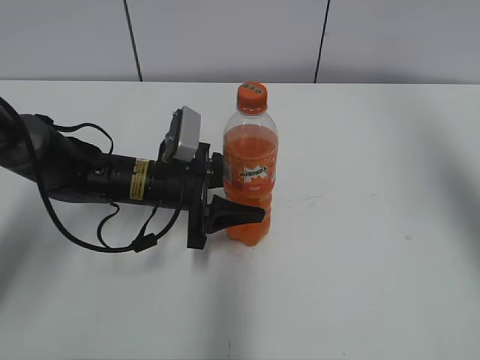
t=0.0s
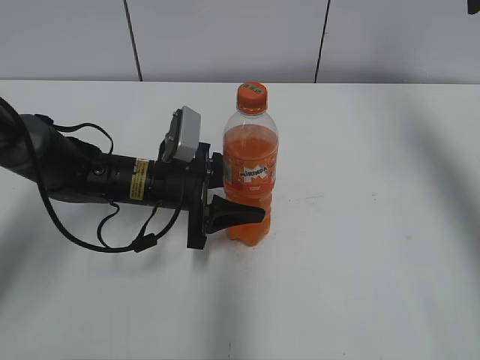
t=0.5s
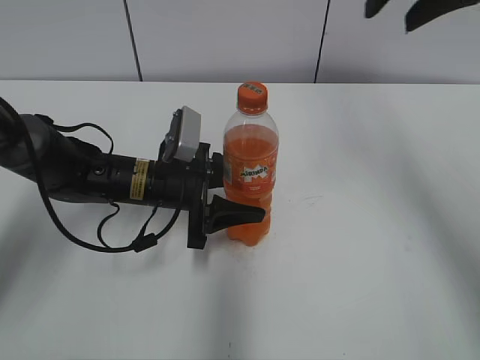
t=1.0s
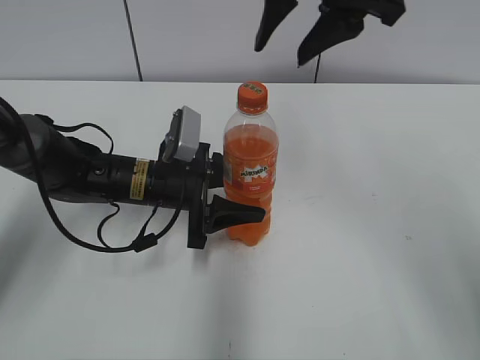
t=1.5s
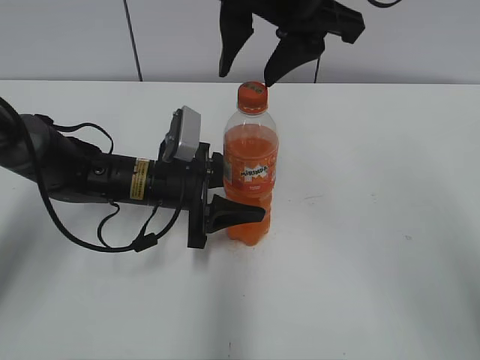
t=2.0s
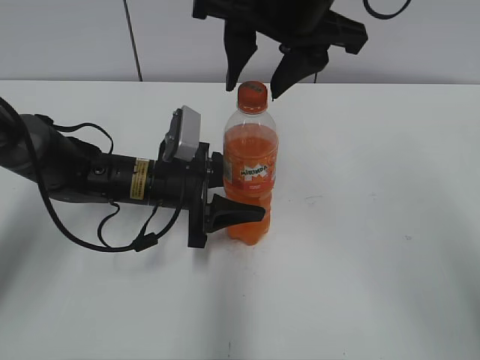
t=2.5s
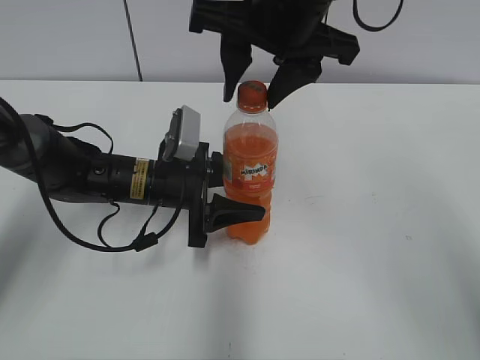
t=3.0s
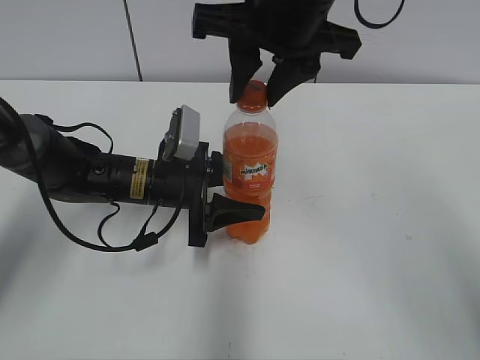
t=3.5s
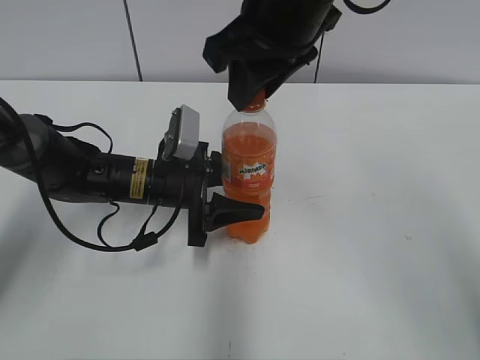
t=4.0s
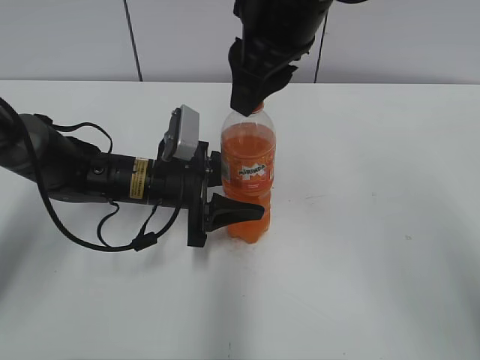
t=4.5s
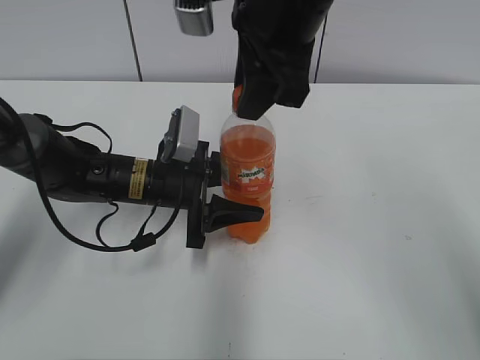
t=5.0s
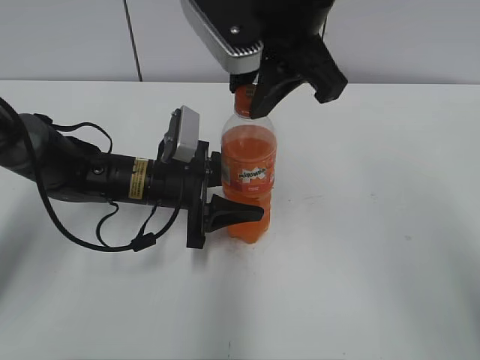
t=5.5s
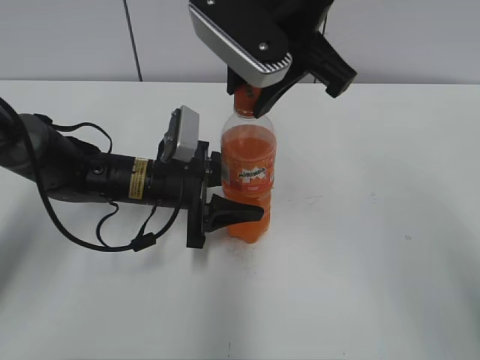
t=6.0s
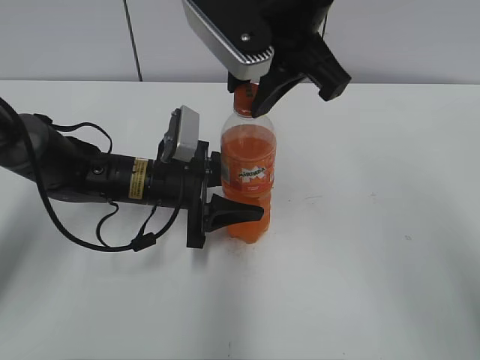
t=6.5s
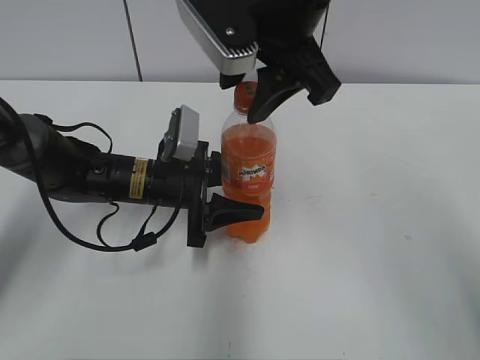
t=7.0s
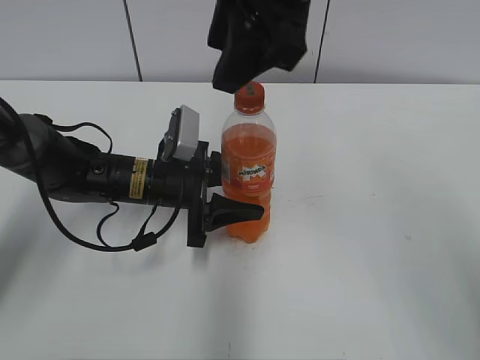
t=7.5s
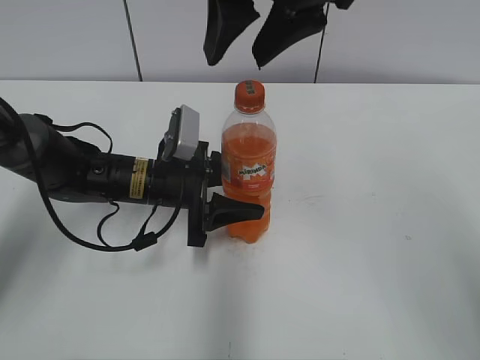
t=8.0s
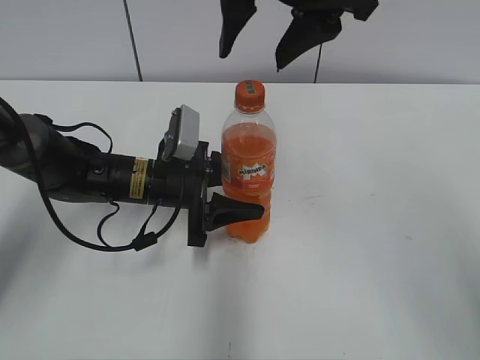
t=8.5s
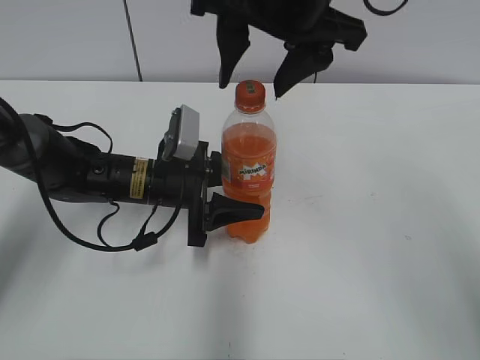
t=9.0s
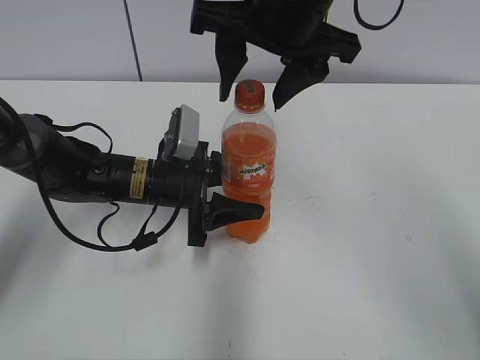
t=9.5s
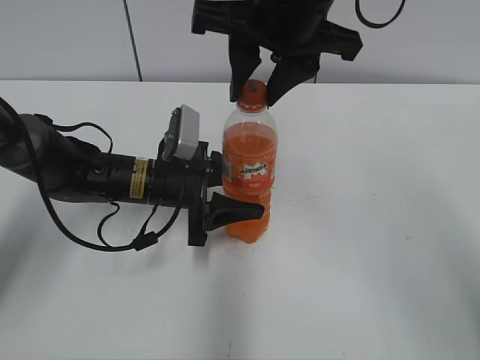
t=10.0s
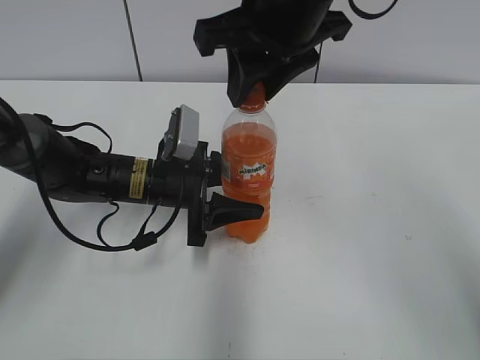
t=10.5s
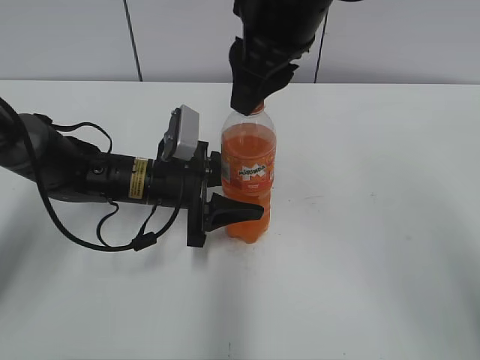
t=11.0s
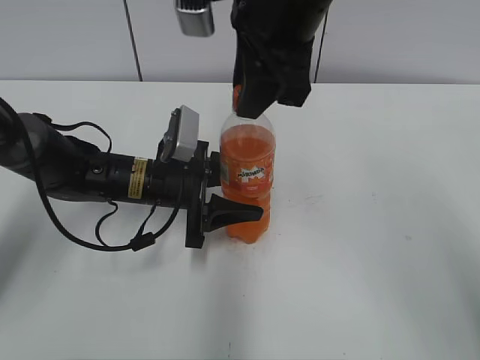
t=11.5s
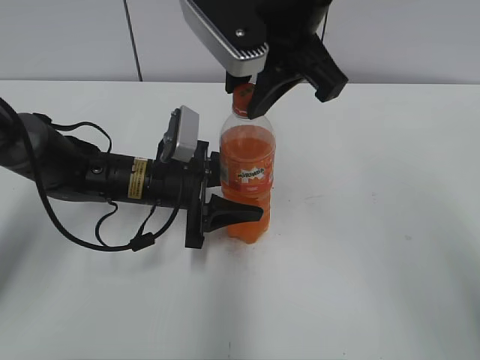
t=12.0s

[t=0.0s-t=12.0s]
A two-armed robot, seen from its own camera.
t=0.0s to t=2.0s: The right gripper travels to the left by about 25 cm.
t=2.0s to t=4.0s: The right gripper closes.
t=6.0s to t=8.0s: The right gripper opens its fingers.
t=8.0s to t=10.0s: The right gripper closes.

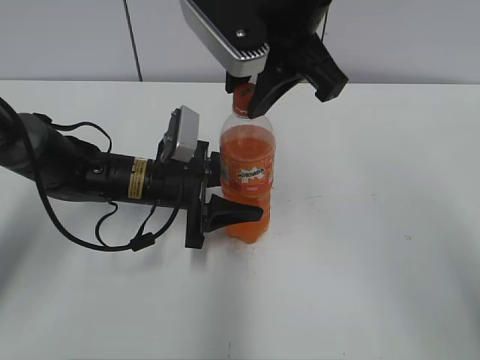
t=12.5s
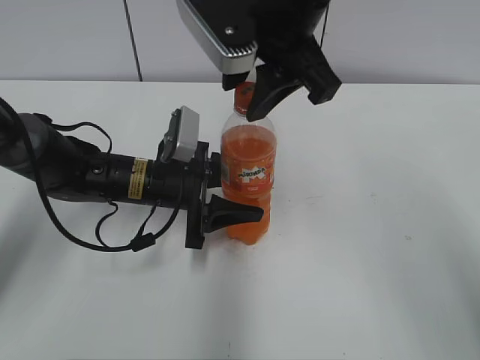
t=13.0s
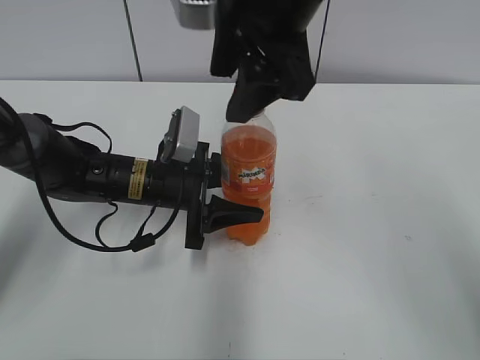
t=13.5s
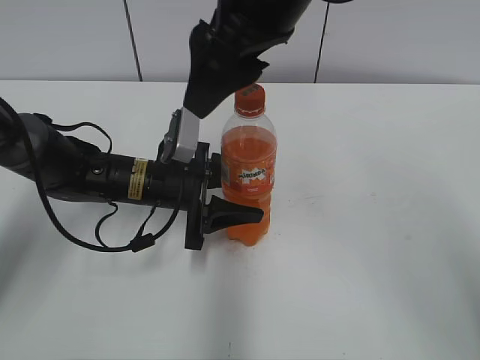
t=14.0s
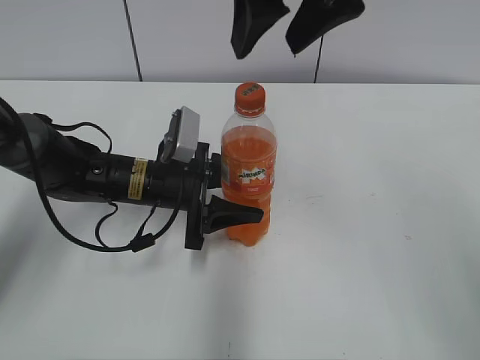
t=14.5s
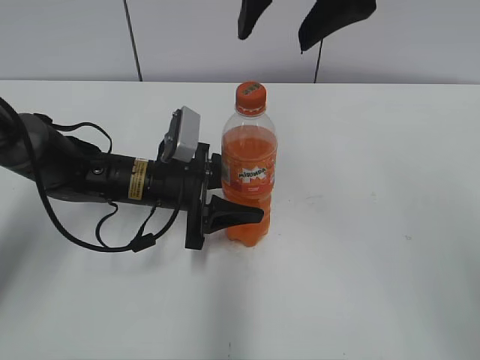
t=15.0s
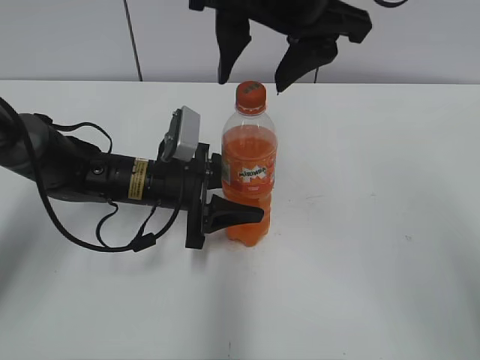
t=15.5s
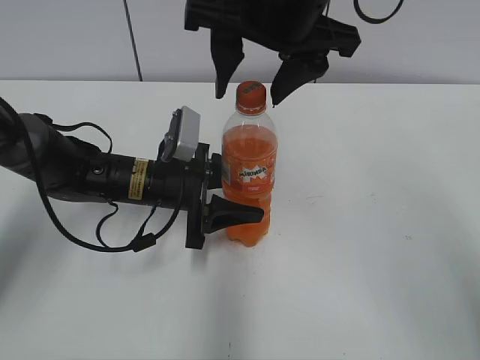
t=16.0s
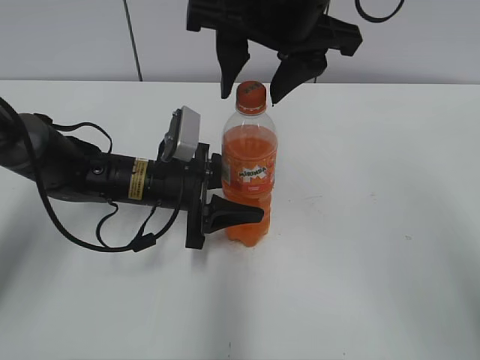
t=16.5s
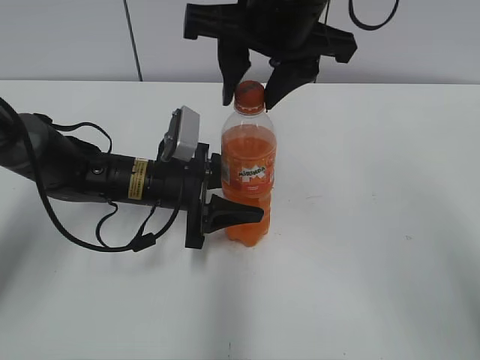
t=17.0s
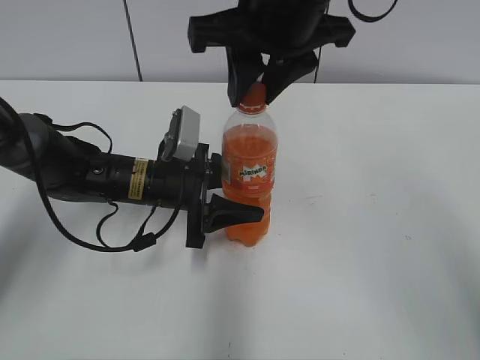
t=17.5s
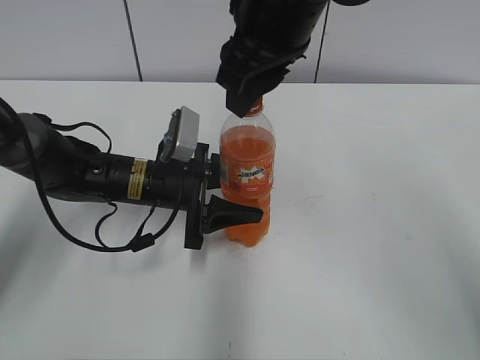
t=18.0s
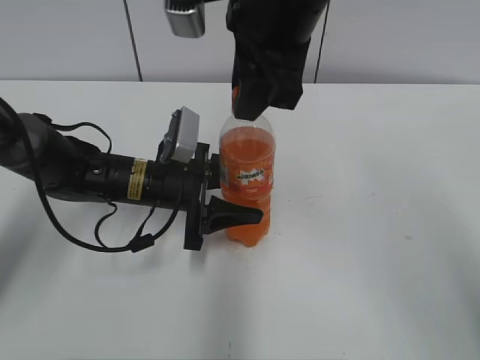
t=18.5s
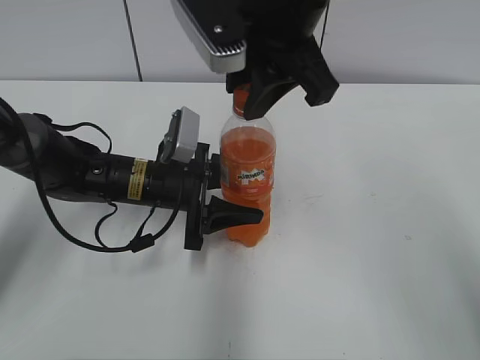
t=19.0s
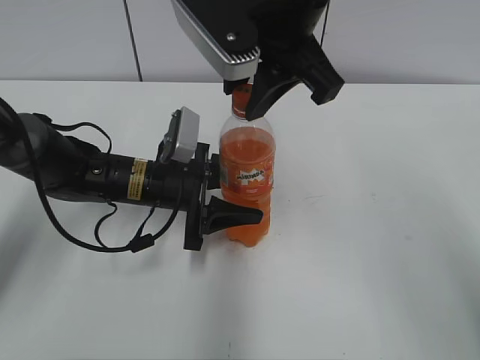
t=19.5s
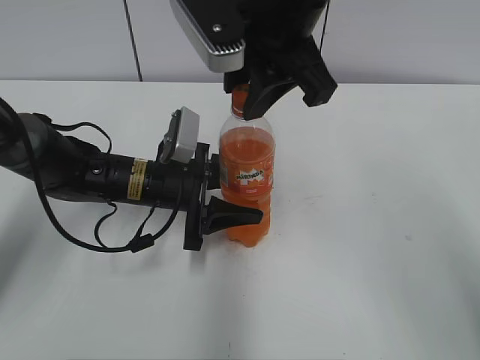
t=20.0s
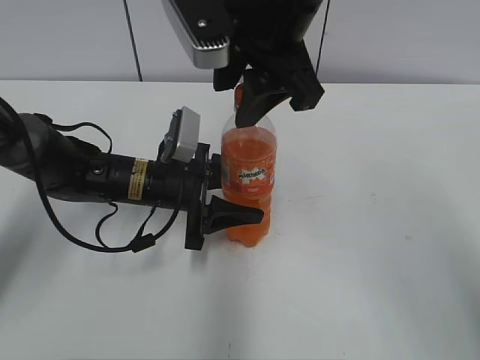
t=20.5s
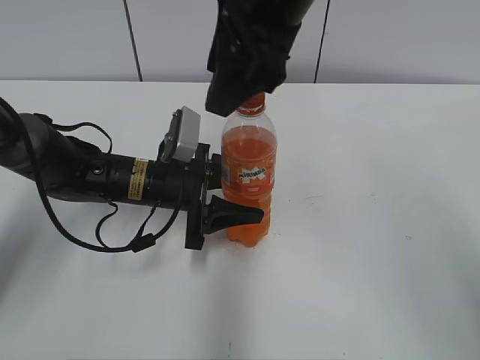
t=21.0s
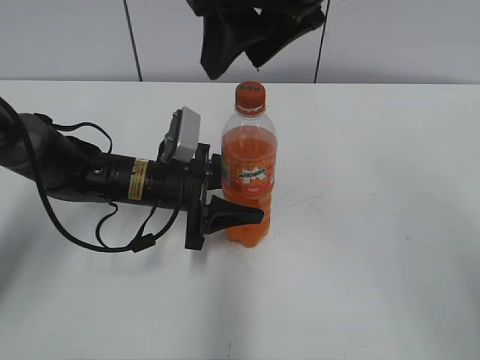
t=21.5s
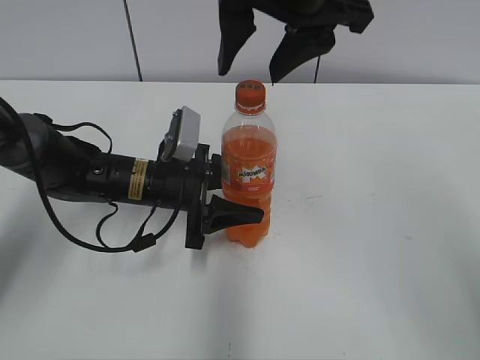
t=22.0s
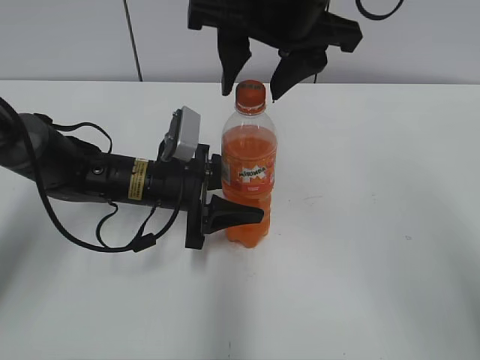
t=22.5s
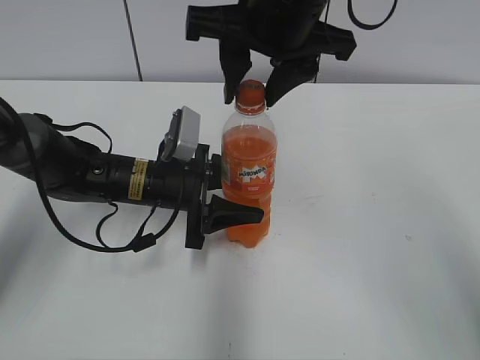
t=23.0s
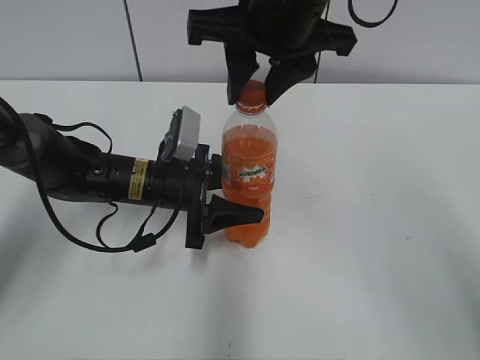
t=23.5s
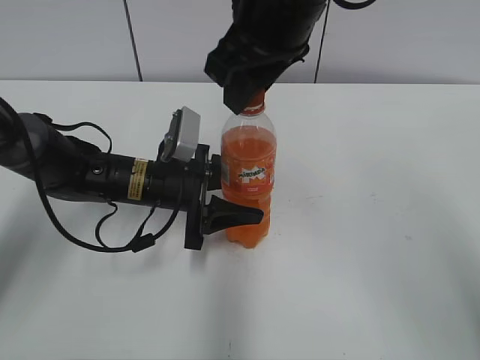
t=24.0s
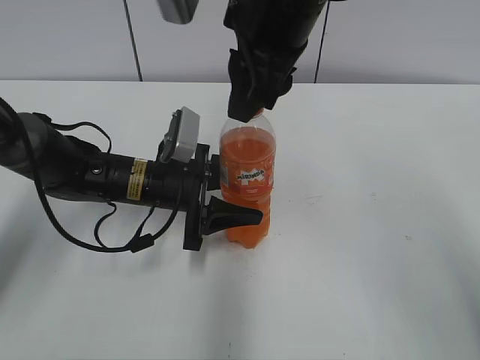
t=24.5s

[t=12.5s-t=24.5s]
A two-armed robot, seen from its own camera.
t=12.5s to t=14.5s: The right gripper shifts by some 5 cm, and opens its fingers.
t=16.5s to t=18.5s: The right gripper closes up.
t=18.5s to t=20.5s: The right gripper opens up.
t=22.5s to t=24.5s: The right gripper closes.

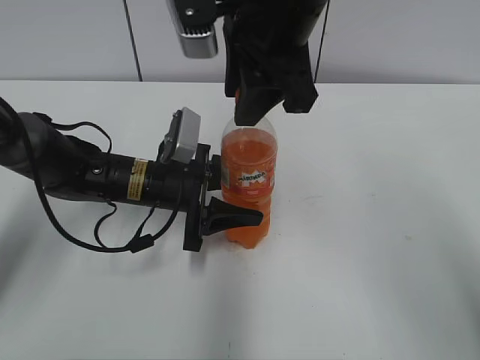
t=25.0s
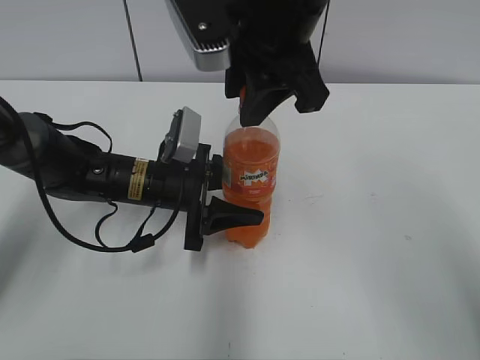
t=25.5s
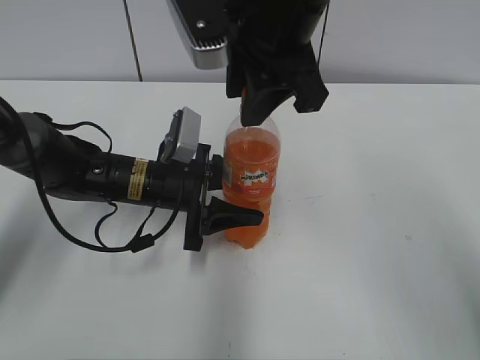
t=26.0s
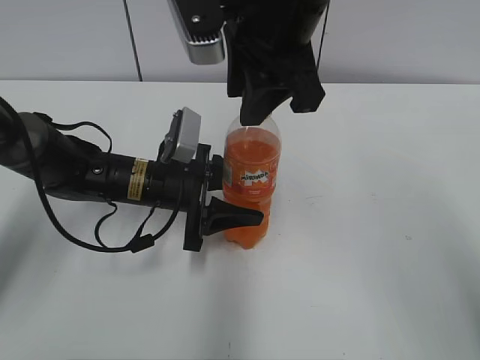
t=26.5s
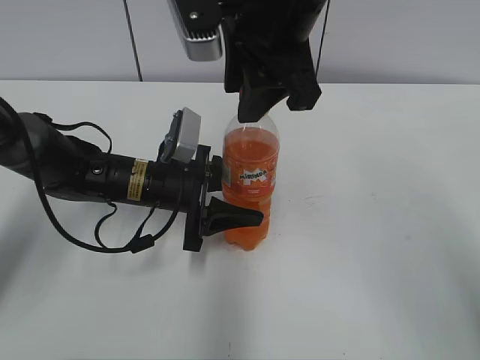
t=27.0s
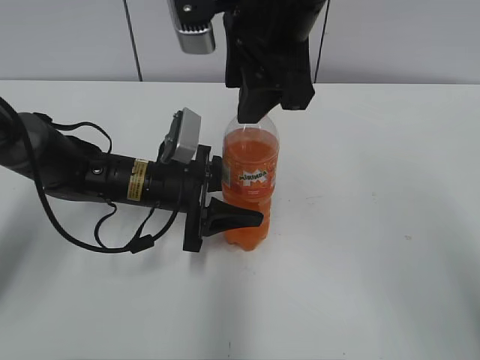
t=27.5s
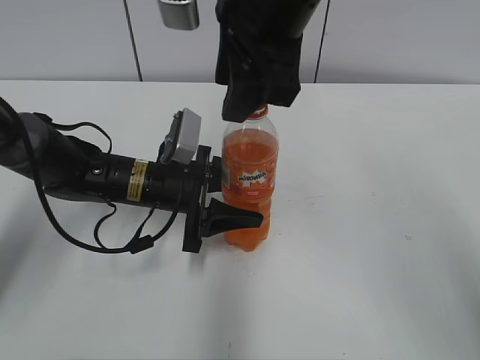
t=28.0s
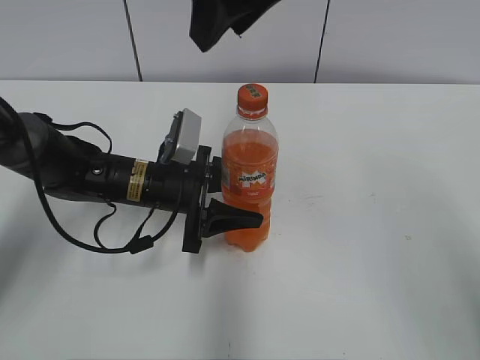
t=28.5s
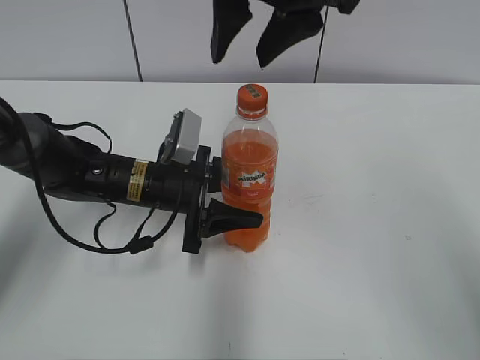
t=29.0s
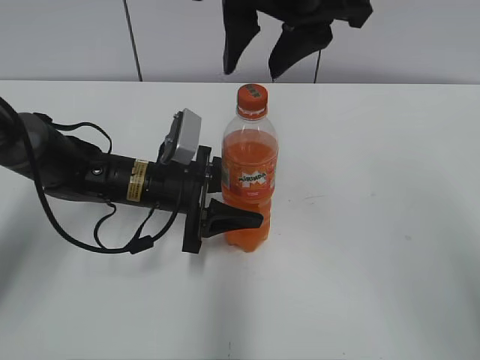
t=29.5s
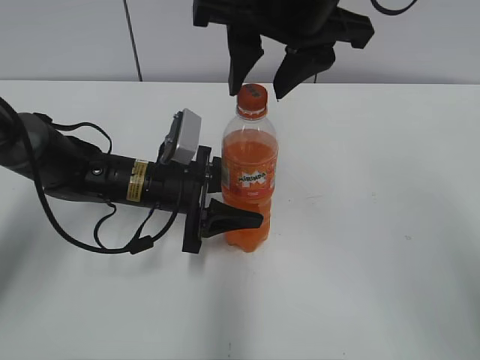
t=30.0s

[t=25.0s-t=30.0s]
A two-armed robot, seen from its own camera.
t=25.0s to t=27.5s: The right gripper opens its fingers.
